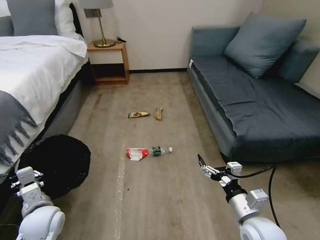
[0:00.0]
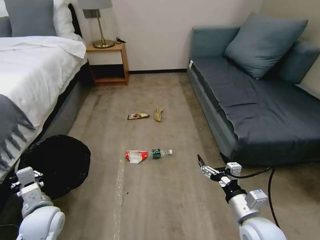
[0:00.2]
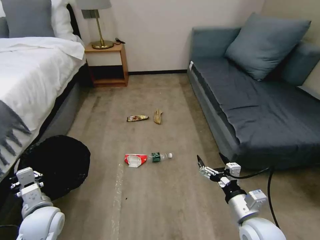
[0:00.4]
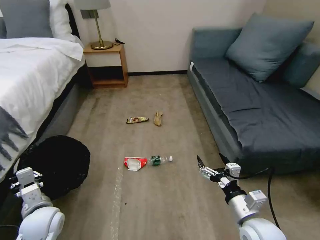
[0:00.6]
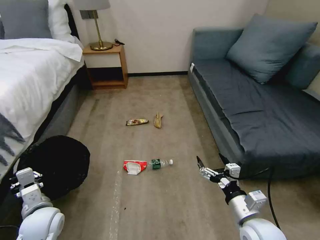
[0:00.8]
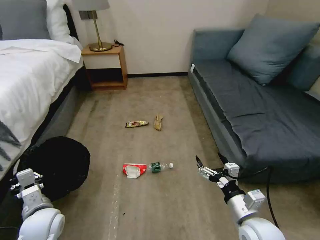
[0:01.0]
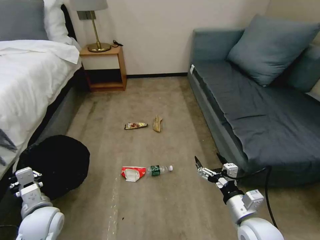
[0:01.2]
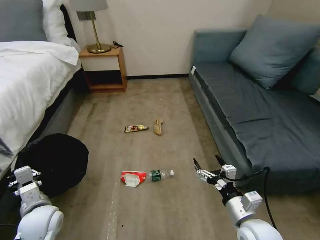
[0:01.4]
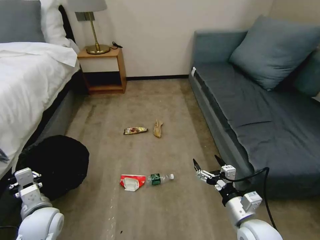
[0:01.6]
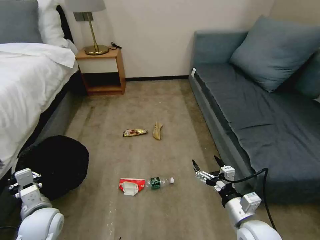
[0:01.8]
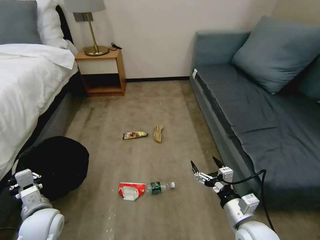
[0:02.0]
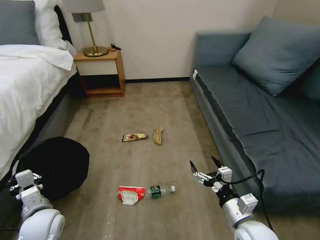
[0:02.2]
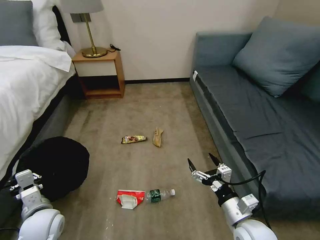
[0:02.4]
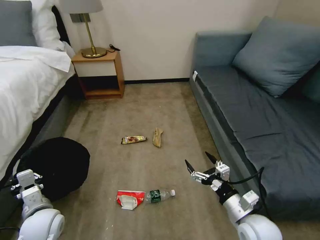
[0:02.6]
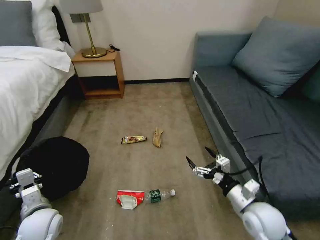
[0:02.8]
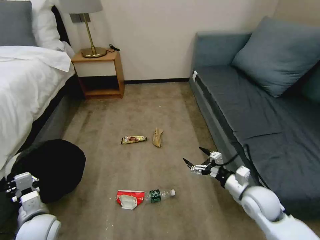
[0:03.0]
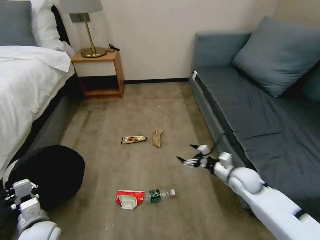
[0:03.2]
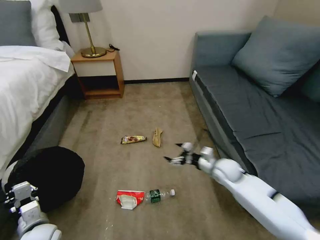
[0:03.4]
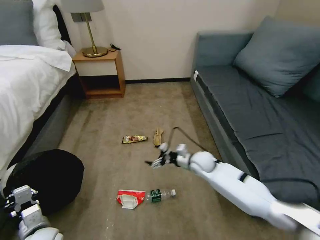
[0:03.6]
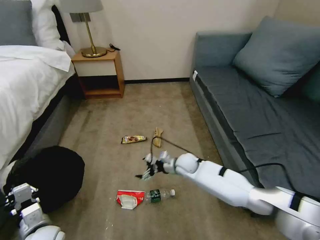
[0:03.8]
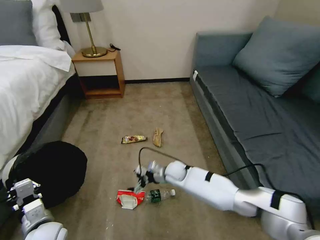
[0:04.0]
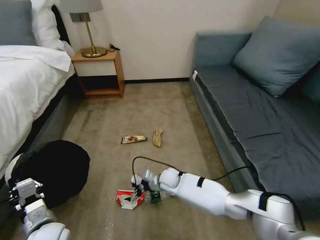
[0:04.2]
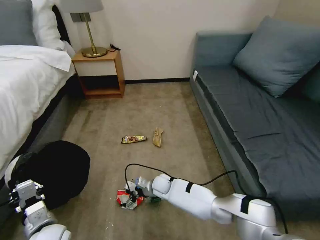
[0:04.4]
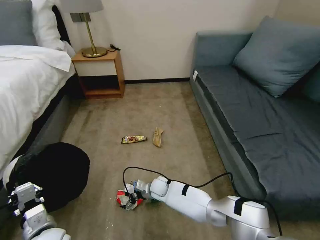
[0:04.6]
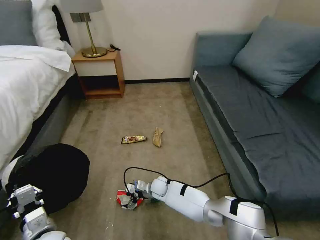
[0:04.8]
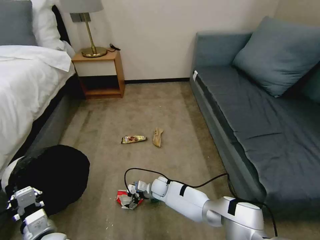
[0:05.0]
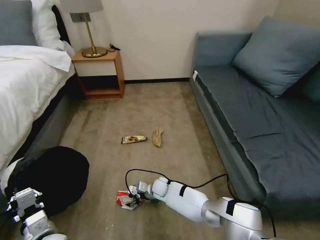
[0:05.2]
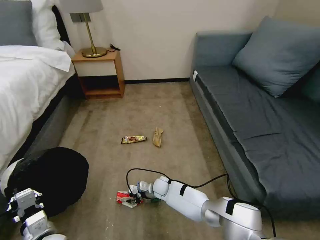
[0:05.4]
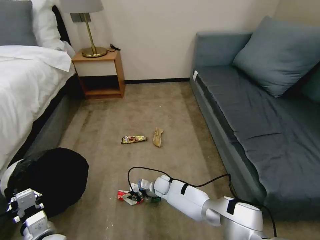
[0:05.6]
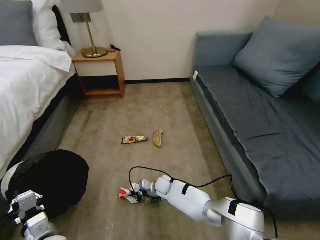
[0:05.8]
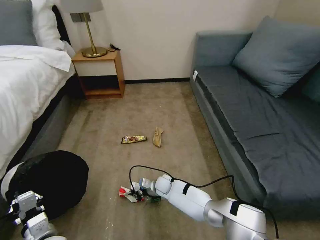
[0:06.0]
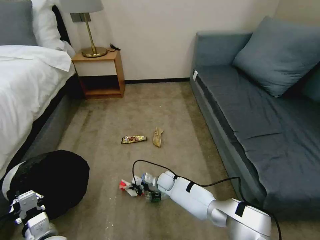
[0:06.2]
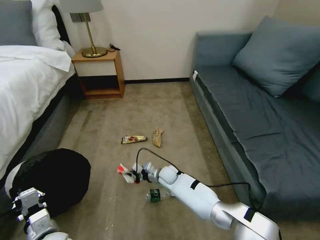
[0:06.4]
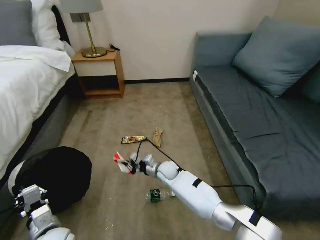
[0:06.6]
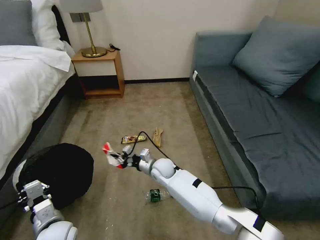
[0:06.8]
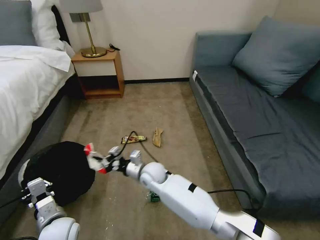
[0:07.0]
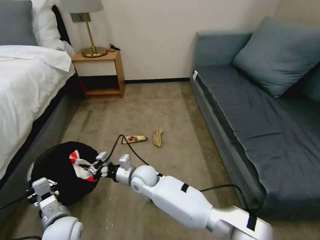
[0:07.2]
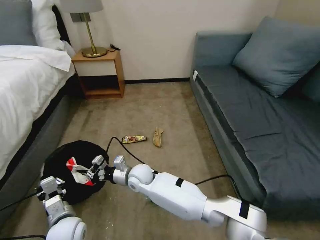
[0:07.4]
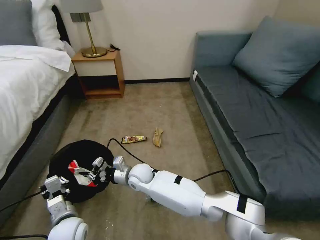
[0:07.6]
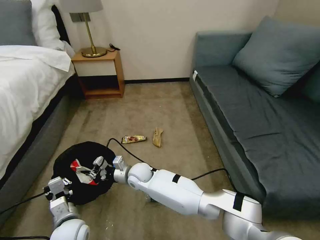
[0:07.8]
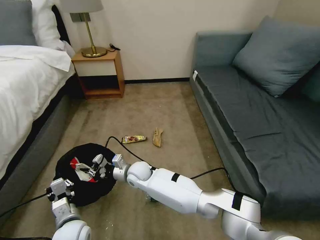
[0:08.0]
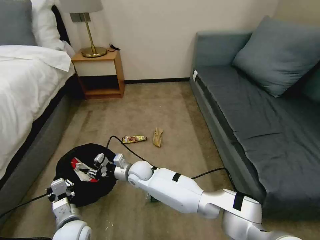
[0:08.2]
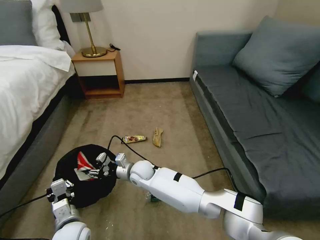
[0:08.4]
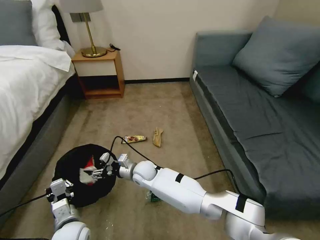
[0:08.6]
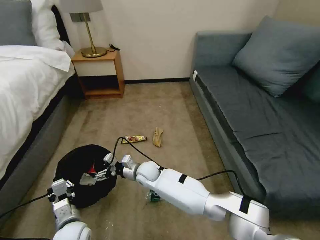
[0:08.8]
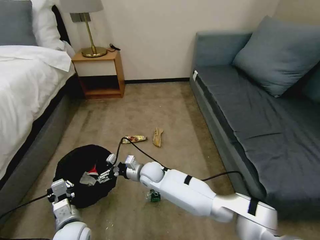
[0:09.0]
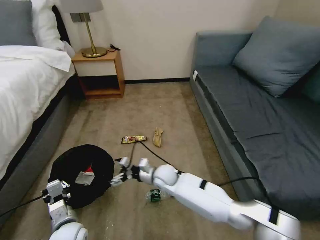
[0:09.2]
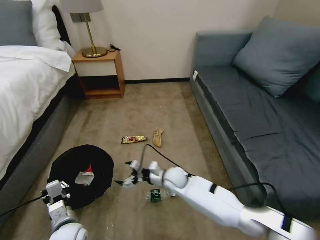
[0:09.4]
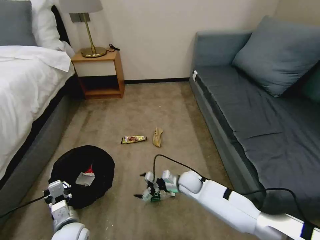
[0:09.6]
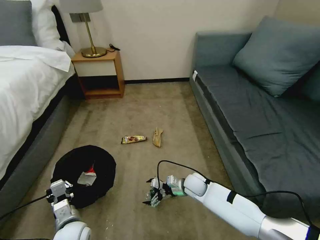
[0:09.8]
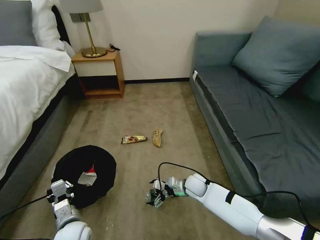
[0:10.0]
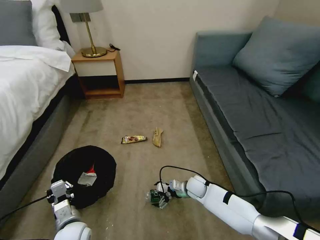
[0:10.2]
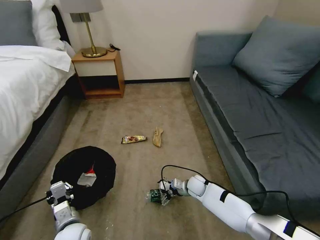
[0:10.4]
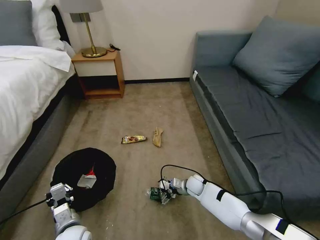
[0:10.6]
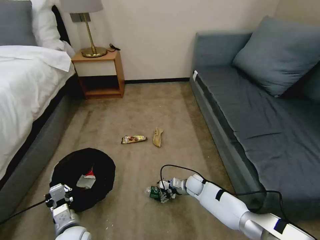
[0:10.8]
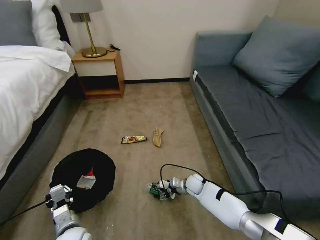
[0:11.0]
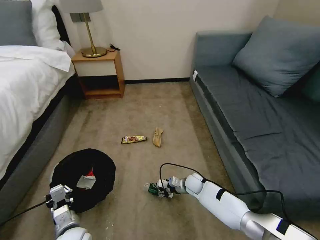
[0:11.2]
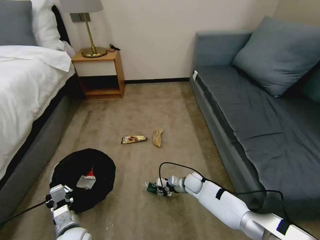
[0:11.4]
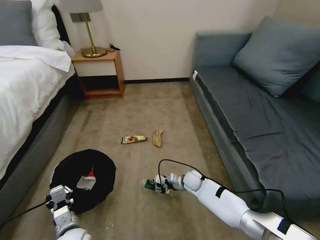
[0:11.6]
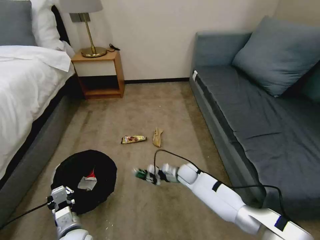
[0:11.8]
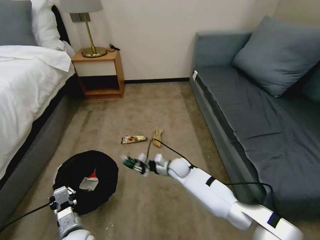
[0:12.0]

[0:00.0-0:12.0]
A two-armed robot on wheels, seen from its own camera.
Task of the whole recording: Pick up the trash bin, then pick up the garbage on the floor and place it into the trash bin.
0:01.6 to 0:03.0: The right gripper moves forward and to the right, some 10 cm.
0:03.0 to 0:04.4: The right gripper travels to the left, downward and forward by some 35 cm. Meanwhile the left gripper goes some 5 cm to the right.
0:04.4 to 0:06.0: The right gripper closes.
0:06.0 to 0:07.6: The right gripper moves upward and to the left, some 20 cm. The left gripper shifts by roughly 5 cm.
0:07.6 to 0:09.0: The right gripper moves some 5 cm, and opens its fingers.
0:09.0 to 0:10.4: The right gripper is displaced to the right and downward by approximately 25 cm.
0:10.4 to 0:12.0: The right gripper is displaced to the left and upward by some 10 cm, and closes its fingers.

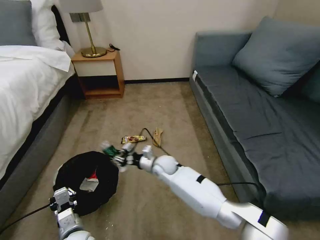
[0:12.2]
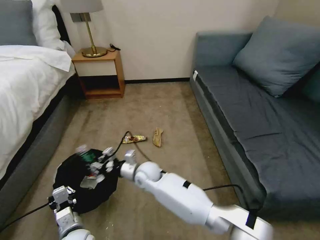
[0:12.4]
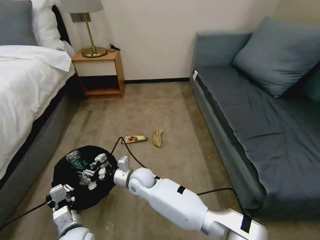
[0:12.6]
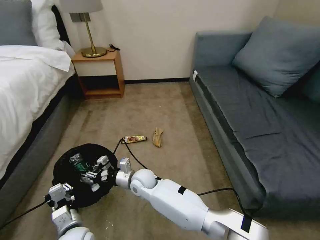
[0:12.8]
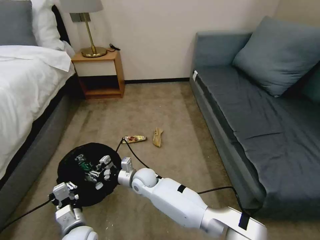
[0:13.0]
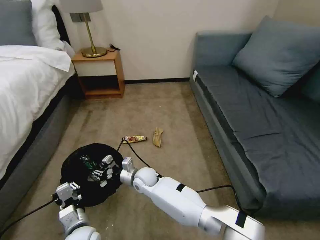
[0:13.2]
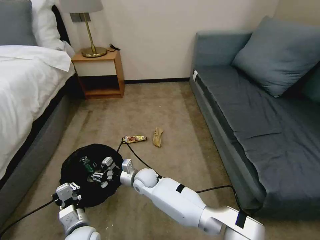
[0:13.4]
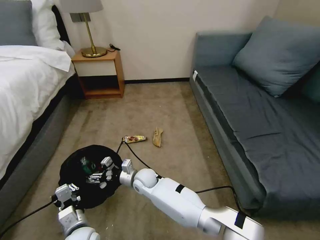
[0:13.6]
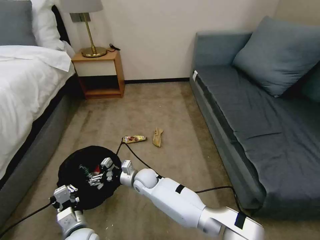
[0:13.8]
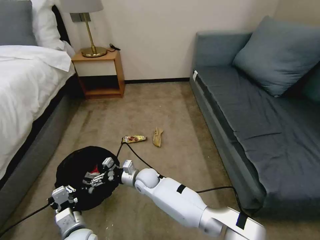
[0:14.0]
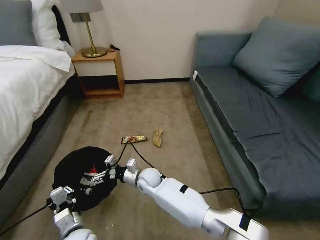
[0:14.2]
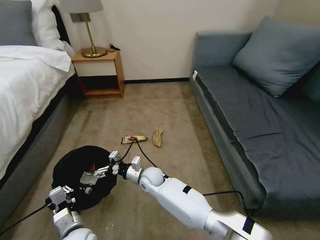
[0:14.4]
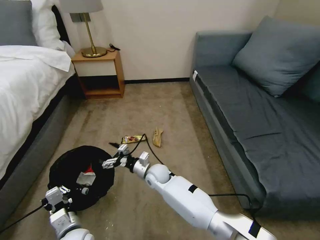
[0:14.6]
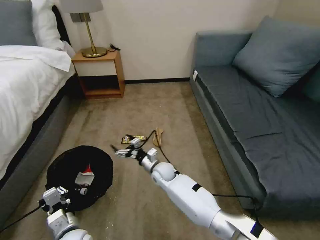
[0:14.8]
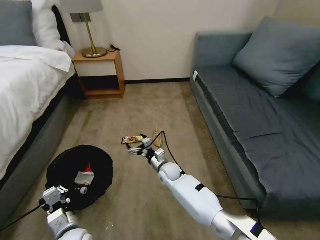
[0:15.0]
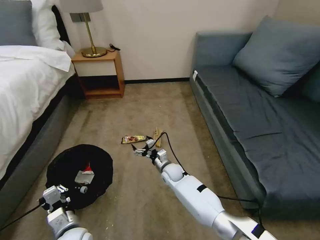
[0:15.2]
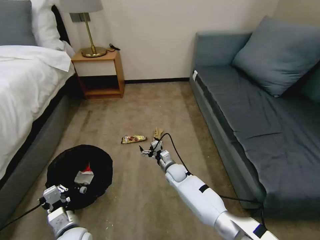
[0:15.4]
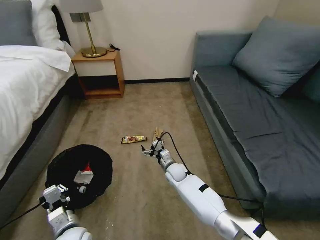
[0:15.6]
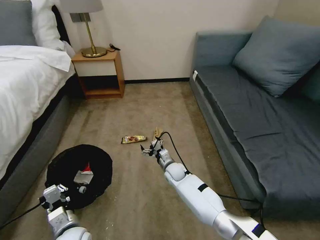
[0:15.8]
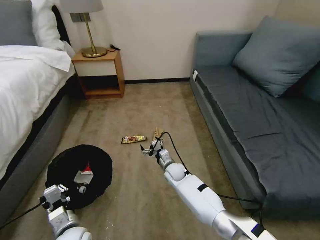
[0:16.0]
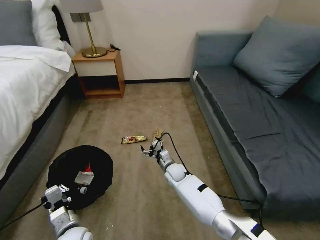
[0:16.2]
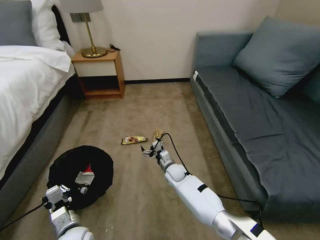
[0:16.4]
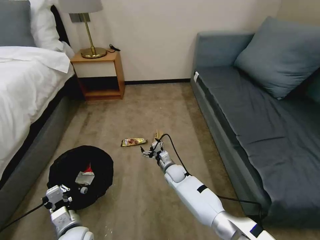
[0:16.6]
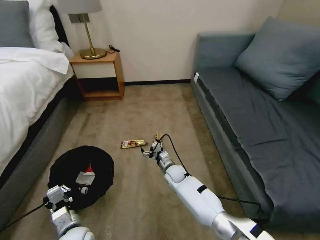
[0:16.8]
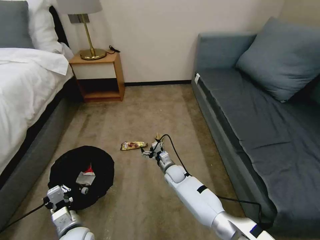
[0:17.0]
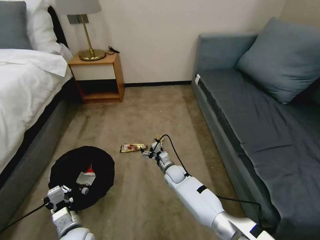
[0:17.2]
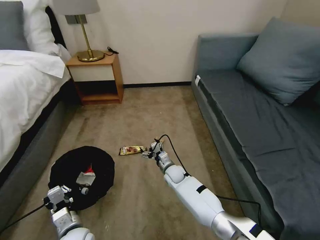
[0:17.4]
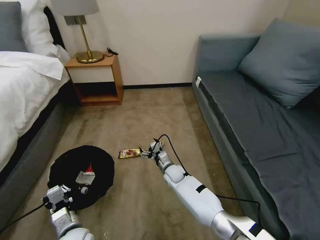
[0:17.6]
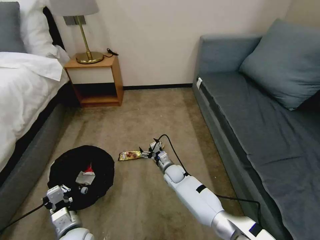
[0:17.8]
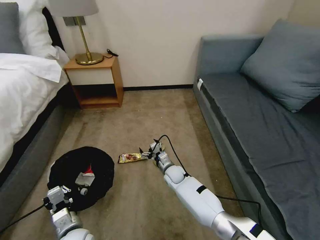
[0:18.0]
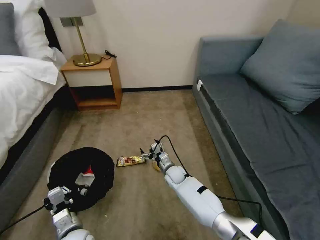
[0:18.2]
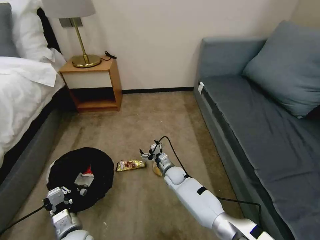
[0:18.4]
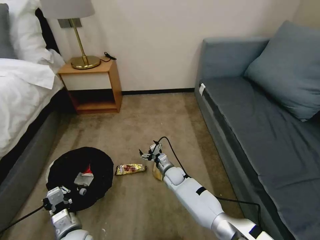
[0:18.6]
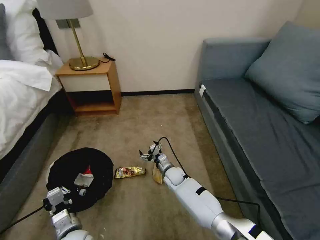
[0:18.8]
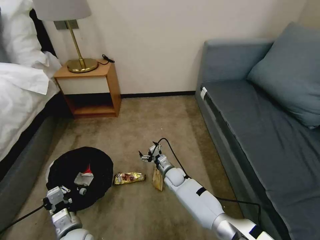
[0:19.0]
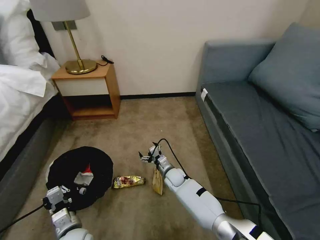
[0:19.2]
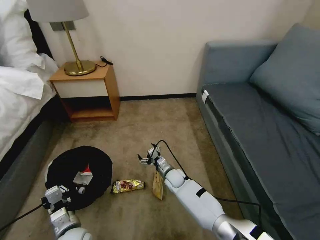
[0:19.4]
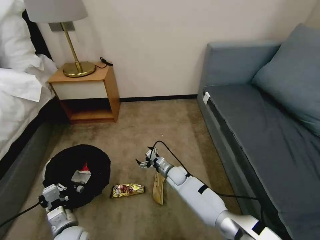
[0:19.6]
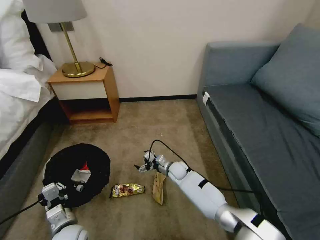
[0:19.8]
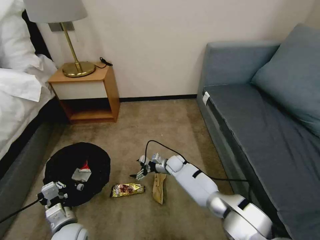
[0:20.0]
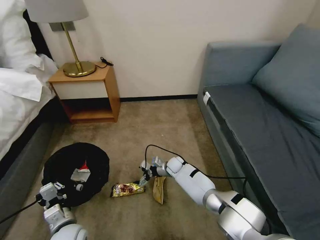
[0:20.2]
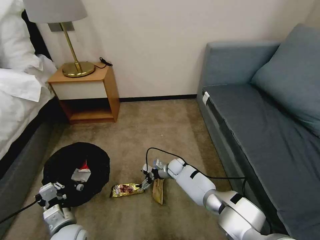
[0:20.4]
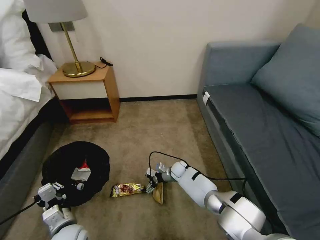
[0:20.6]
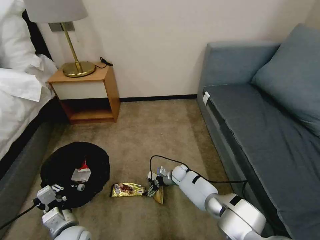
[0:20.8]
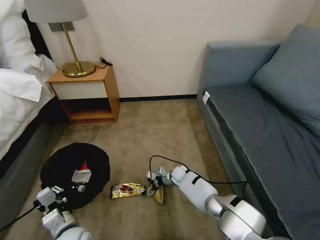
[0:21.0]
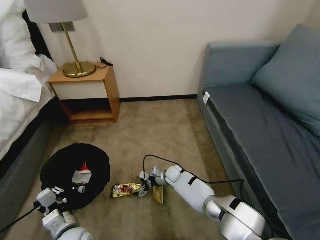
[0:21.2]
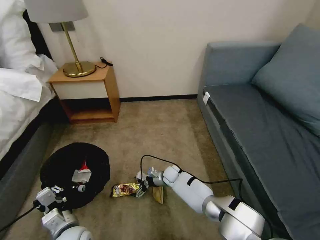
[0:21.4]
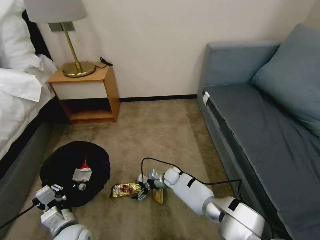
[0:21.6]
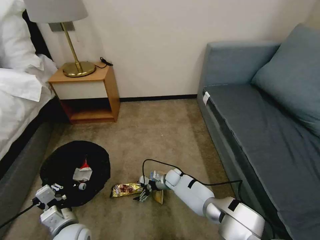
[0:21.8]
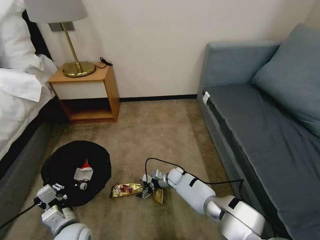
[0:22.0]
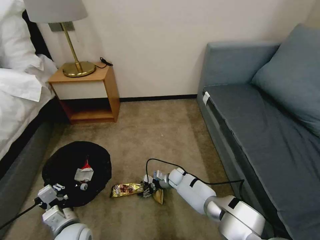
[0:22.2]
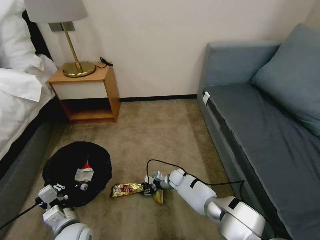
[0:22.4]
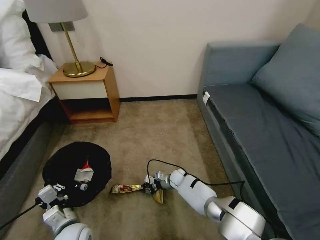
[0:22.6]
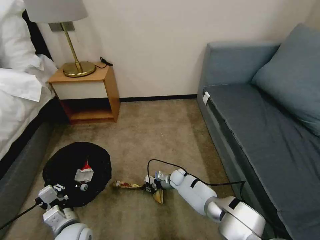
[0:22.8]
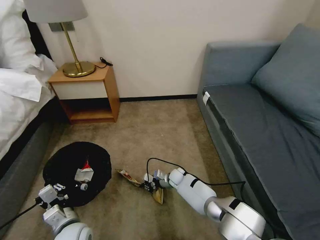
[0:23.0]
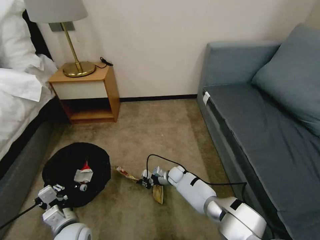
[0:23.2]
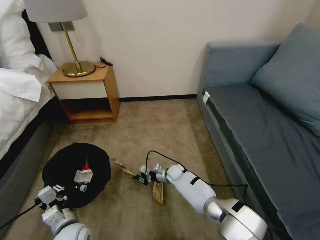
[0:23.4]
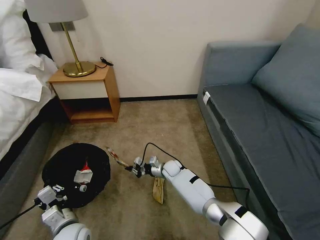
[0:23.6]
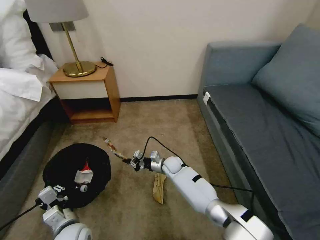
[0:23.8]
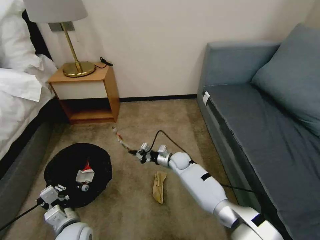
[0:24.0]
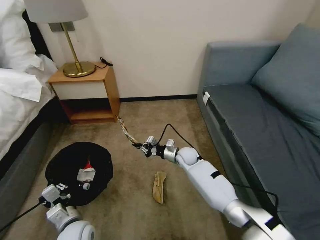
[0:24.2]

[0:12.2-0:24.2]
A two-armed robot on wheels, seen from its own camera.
Task of the whole recording: Pick up the trash bin, then pick up the garbage on the floor and place it into the trash bin.
0:12.2 to 0:13.8: The right gripper is displaced to the left by approximately 5 cm, and opens its fingers.
0:13.8 to 0:15.2: The right gripper is displaced to the right by approximately 10 cm.
0:15.2 to 0:16.6: The grippers move only a little.
0:19.8 to 0:21.2: The right gripper shifts by about 10 cm.
0:21.2 to 0:22.6: The right gripper closes up.
0:22.6 to 0:24.2: The right gripper heads upward, covering approximately 10 cm.
